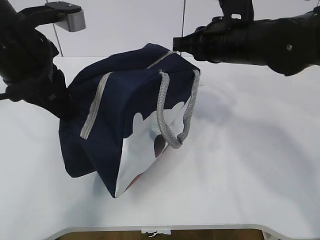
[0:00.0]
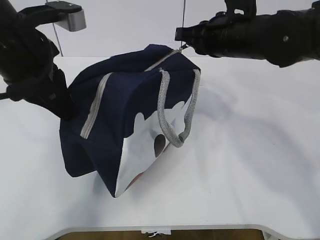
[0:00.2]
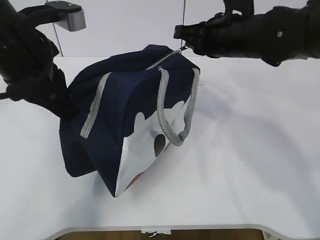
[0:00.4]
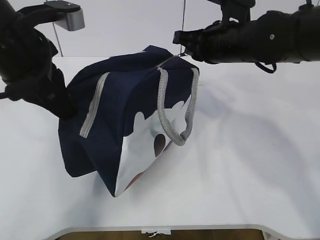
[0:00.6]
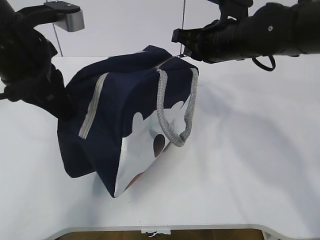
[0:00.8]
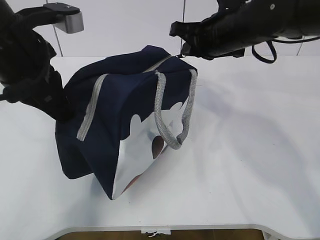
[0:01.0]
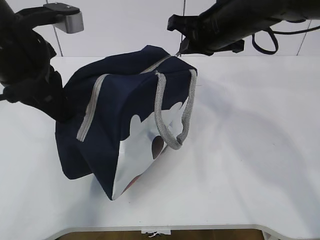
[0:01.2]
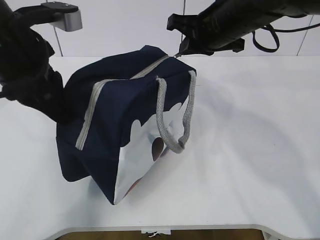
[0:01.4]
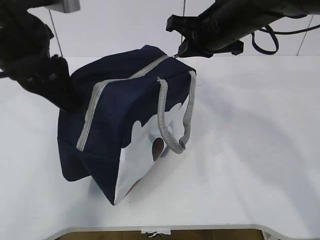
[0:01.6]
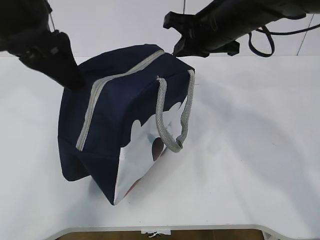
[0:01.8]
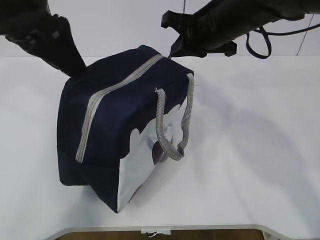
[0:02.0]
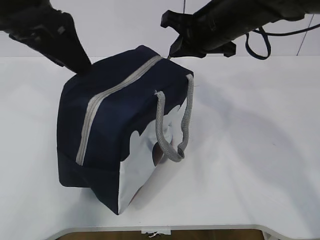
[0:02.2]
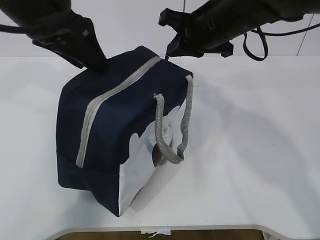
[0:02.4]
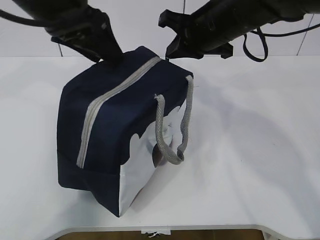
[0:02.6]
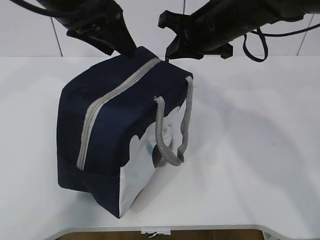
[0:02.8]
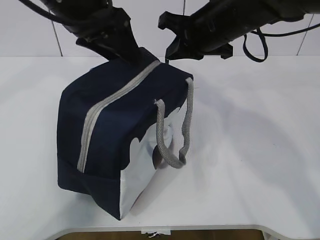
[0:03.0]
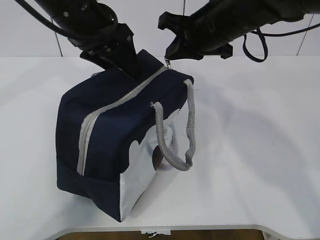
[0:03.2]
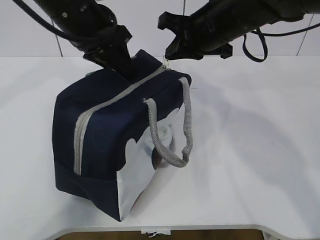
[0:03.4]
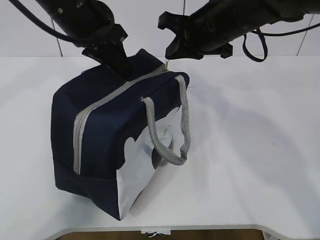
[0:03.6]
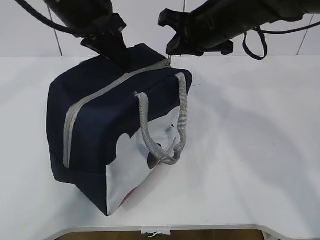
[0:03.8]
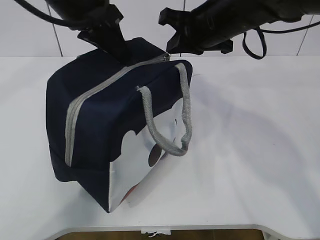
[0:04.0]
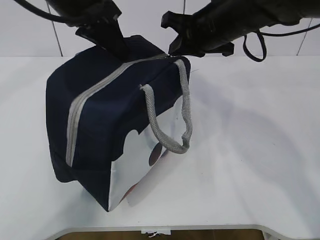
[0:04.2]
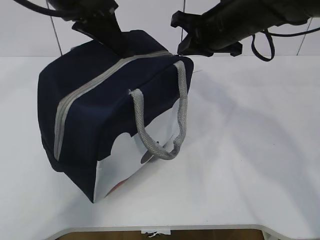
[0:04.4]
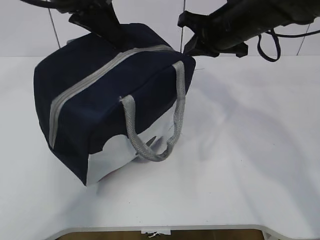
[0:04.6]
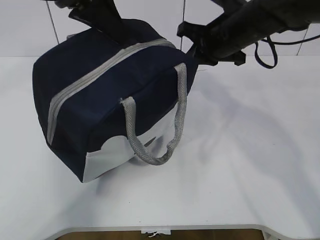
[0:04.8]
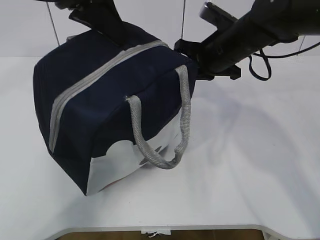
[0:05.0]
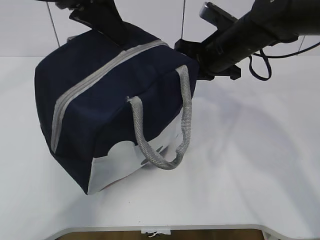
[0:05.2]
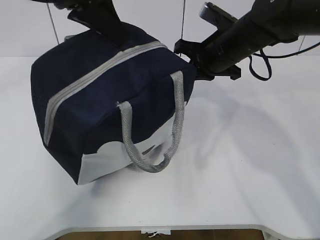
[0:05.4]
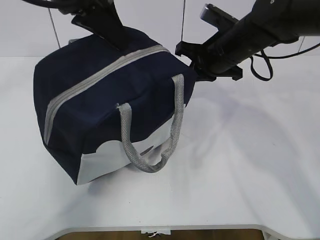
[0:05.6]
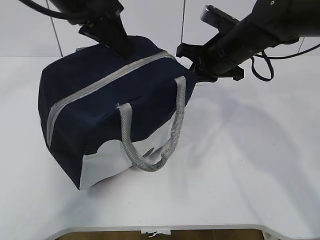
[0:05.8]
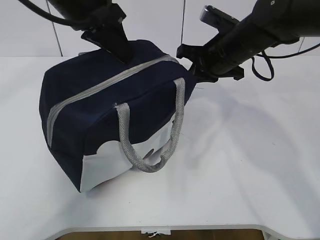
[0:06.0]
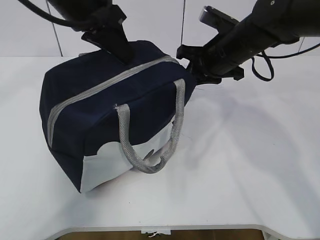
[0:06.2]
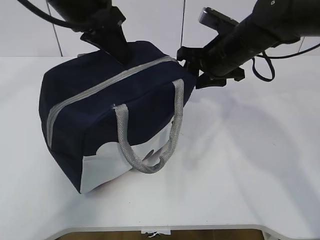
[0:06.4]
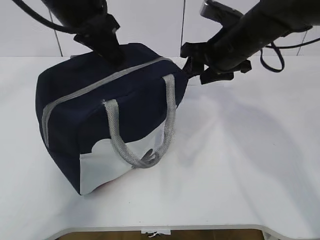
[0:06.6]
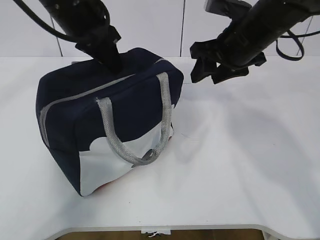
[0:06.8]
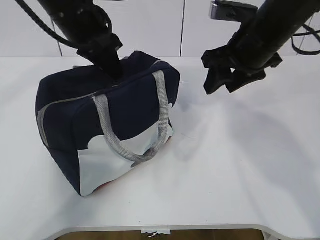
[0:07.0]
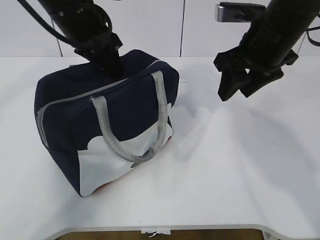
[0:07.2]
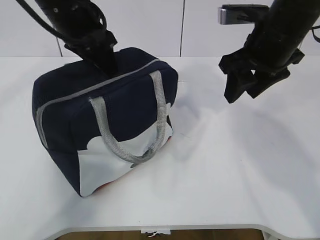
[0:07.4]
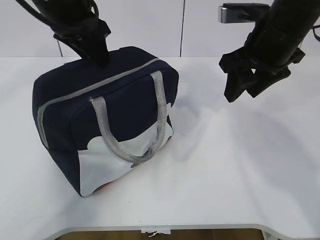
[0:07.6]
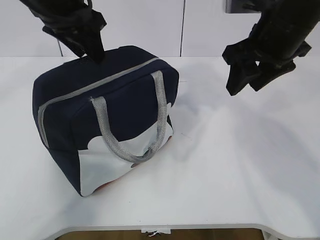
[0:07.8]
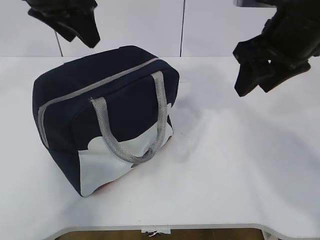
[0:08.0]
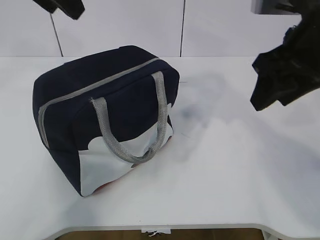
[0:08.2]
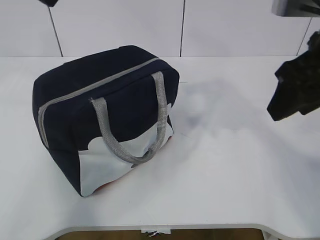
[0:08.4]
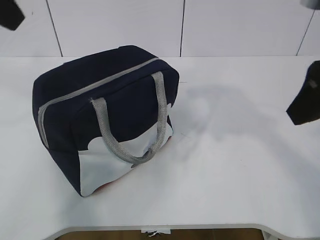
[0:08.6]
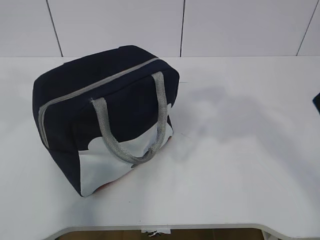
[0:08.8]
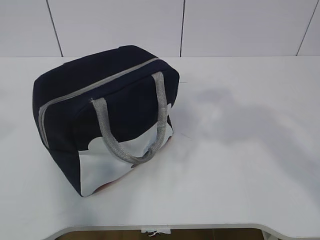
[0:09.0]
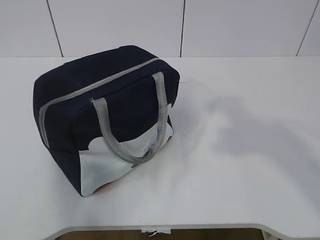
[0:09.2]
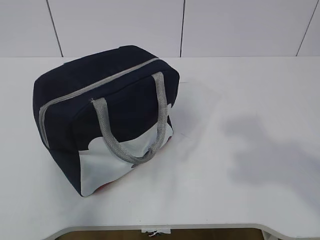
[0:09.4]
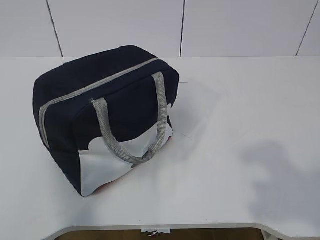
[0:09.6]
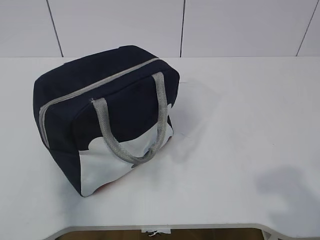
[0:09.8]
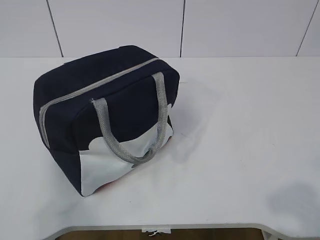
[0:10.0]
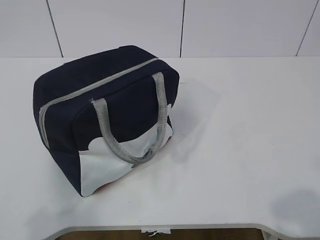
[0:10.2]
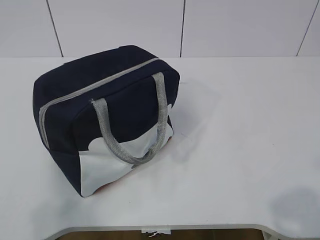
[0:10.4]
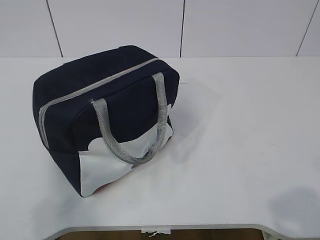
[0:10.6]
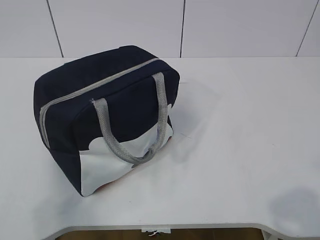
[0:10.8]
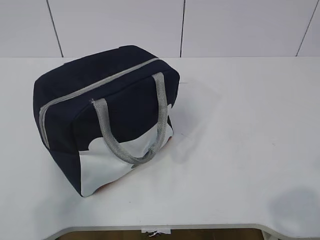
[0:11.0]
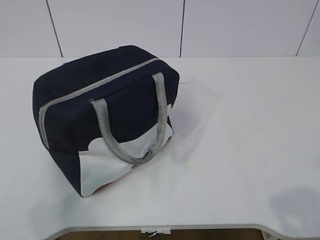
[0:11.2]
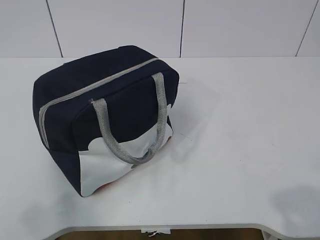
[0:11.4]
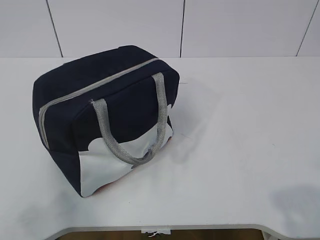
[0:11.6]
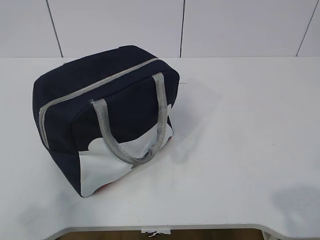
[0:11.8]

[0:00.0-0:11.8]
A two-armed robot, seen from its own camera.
Step, 0:00.0 to 0:08.0: zip up the zipper to close the bag.
0:00.0 to 0:01.4: The left gripper opens.
0:01.4 to 0:03.0: The left gripper goes roughly 10 cm forward and to the right, and opens up.
0:03.0 to 0:04.4: The left gripper closes.
0:06.0 to 0:07.4: The right gripper heads backward and upward, covering approximately 10 cm, and opens. Meanwhile the left gripper opens its fingers.
0:07.4 to 0:08.8: The left gripper moves backward, upward and to the left, some 25 cm. Meanwhile the right gripper moves backward and upward, some 20 cm.
0:08.8 to 0:10.4: Both grippers move backward and downward, about 25 cm.

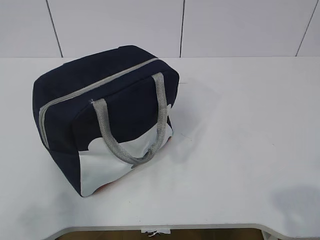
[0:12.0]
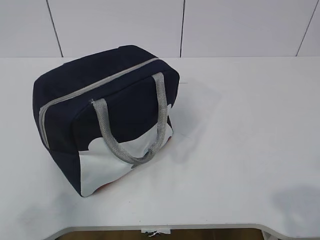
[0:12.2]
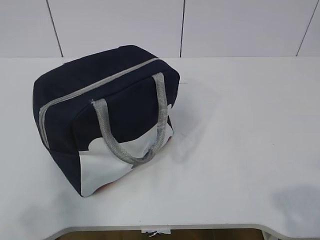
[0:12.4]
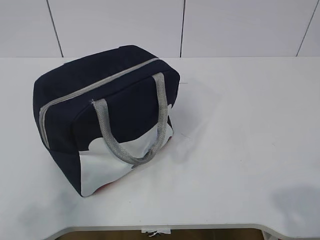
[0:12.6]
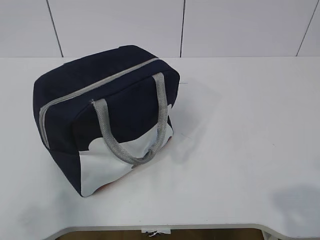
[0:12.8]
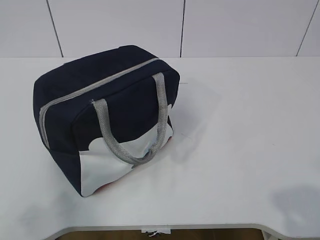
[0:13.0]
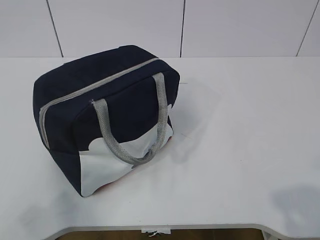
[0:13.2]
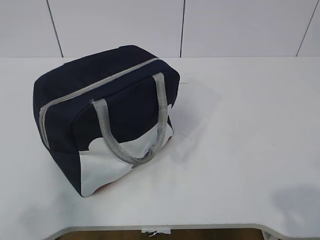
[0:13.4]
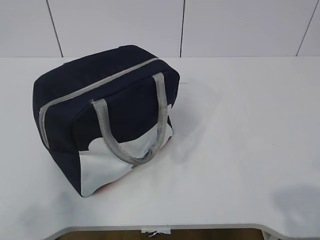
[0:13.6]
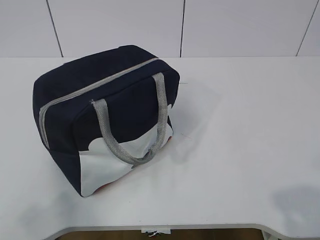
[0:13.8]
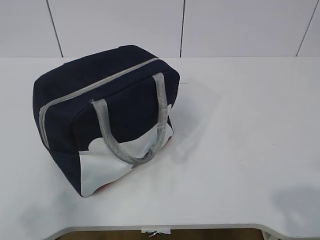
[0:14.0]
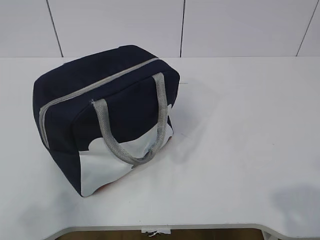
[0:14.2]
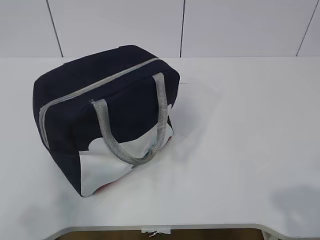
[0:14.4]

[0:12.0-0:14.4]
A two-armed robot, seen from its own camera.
0:12.0 to 0:14.4: The two grippers keep their place.
